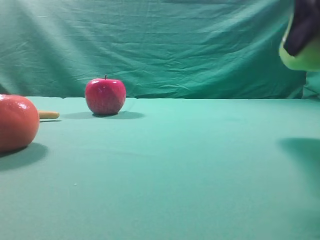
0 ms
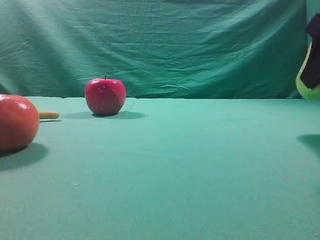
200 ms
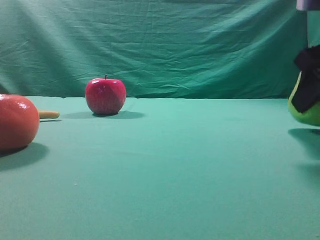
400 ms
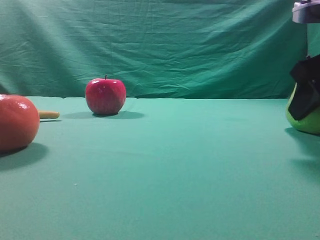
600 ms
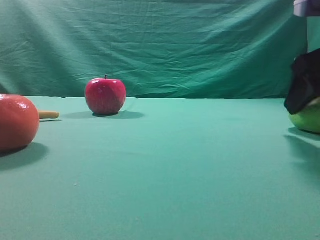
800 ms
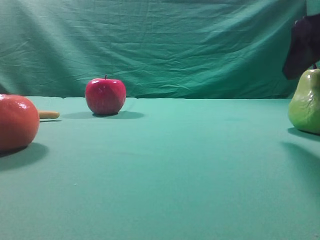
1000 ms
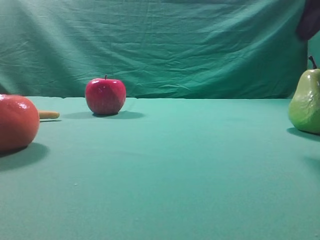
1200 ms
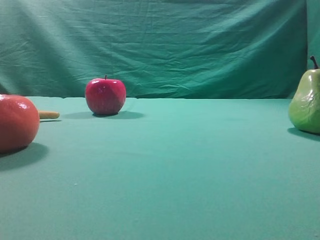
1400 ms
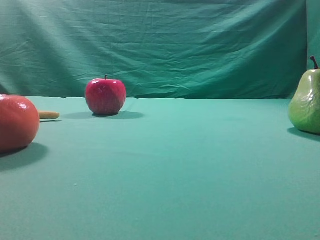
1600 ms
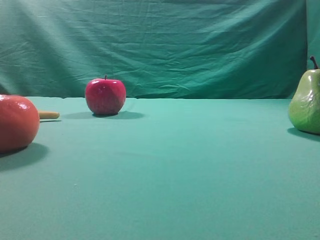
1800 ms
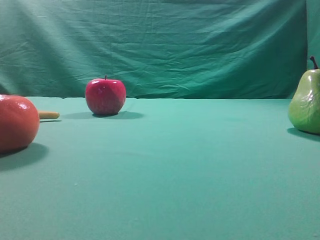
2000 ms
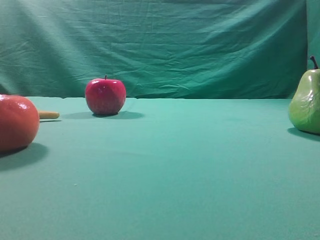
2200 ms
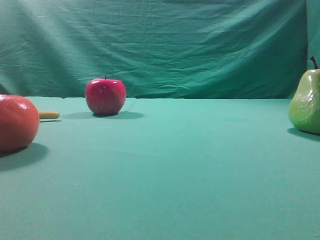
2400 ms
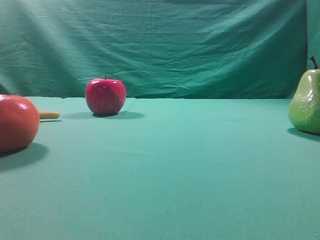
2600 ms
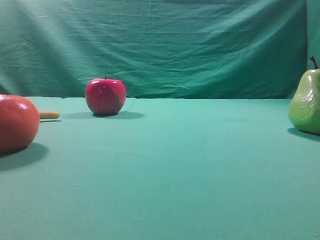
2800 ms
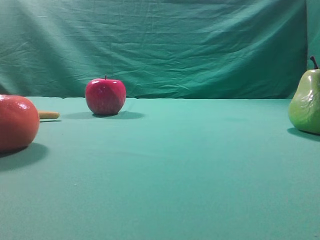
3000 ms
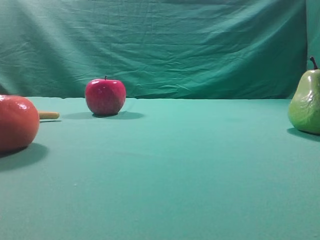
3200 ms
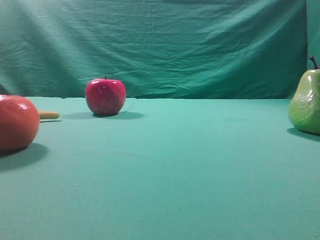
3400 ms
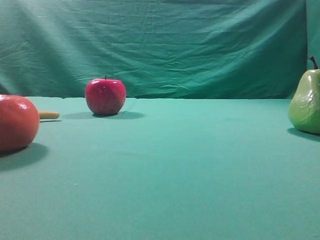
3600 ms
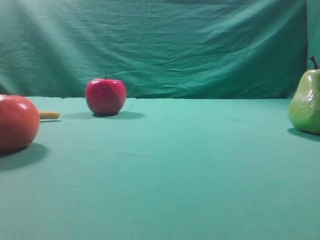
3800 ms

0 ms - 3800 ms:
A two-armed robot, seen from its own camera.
Task of the whole recording: Grasp the pear and place it on one side of the table.
Step, 0 ms - 1000 ms: Place it on the right side of the table.
